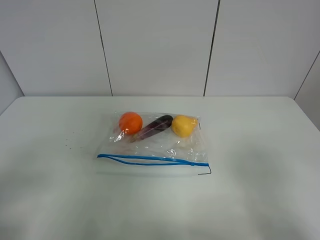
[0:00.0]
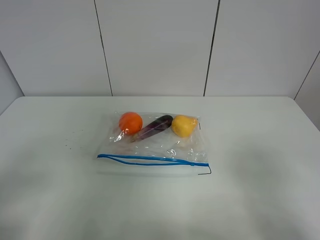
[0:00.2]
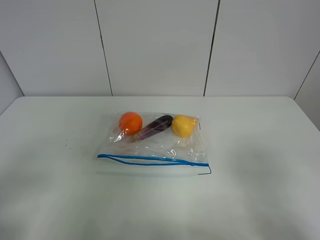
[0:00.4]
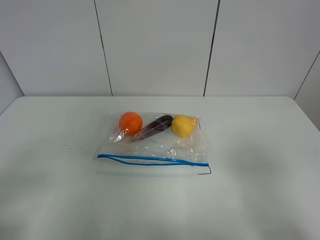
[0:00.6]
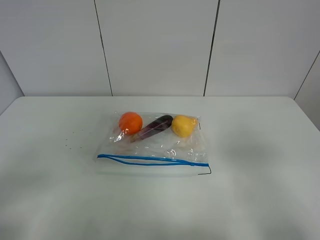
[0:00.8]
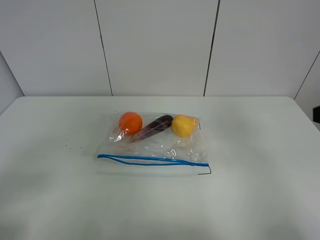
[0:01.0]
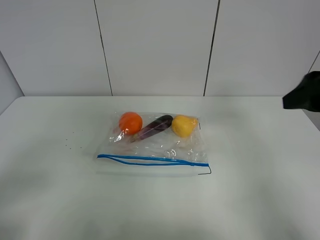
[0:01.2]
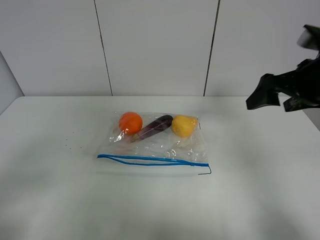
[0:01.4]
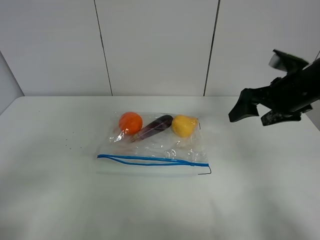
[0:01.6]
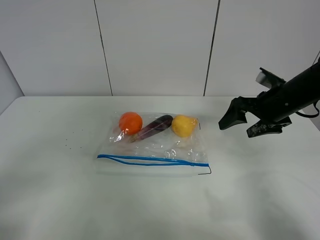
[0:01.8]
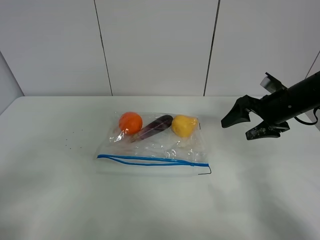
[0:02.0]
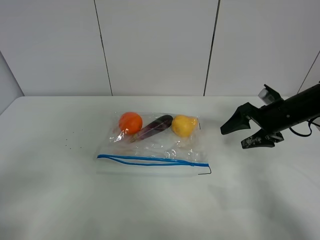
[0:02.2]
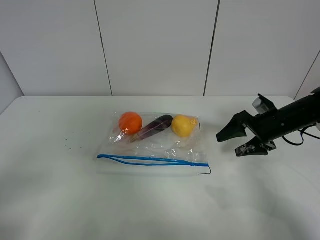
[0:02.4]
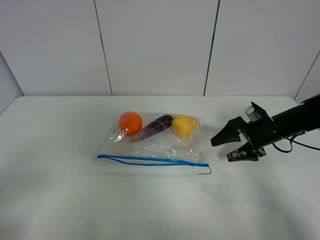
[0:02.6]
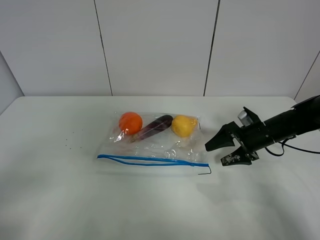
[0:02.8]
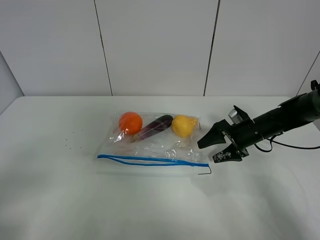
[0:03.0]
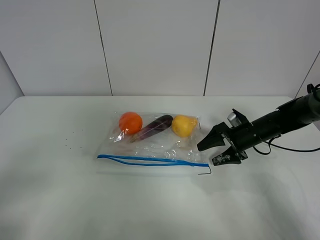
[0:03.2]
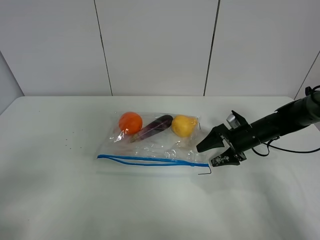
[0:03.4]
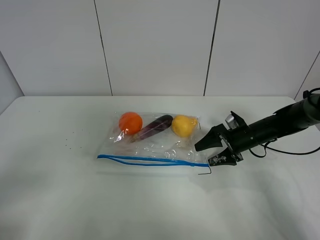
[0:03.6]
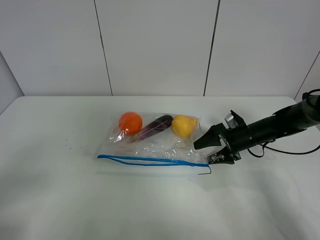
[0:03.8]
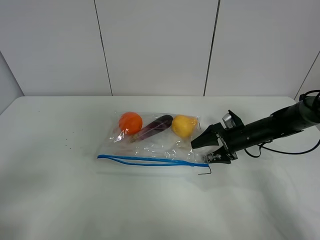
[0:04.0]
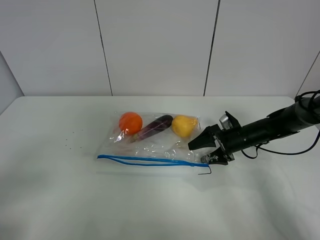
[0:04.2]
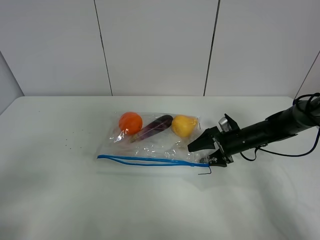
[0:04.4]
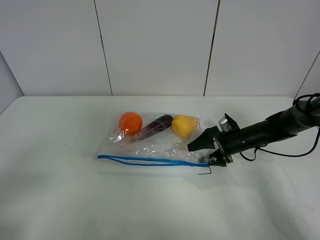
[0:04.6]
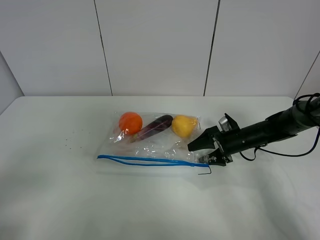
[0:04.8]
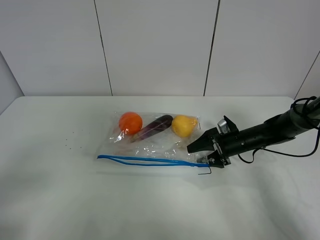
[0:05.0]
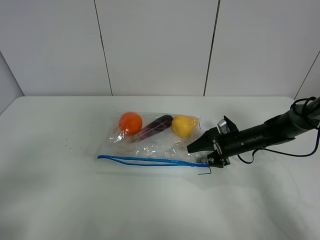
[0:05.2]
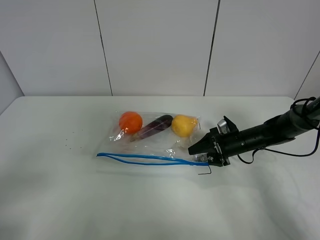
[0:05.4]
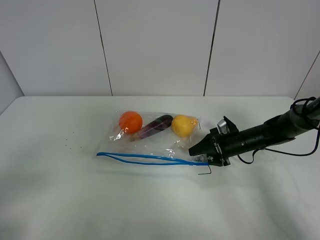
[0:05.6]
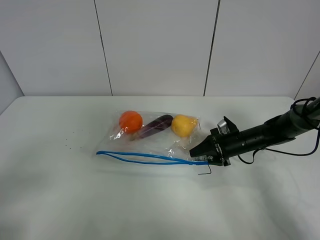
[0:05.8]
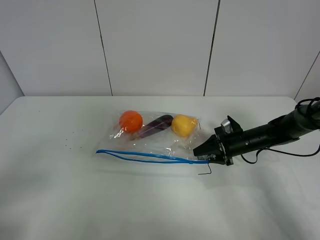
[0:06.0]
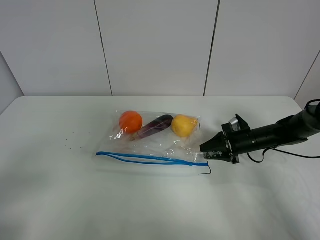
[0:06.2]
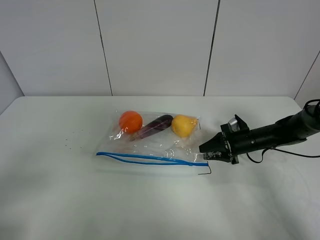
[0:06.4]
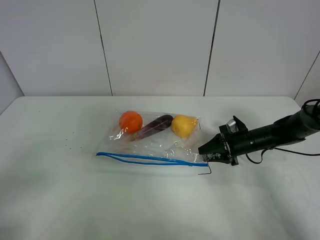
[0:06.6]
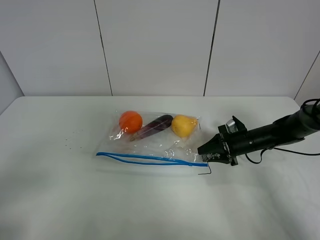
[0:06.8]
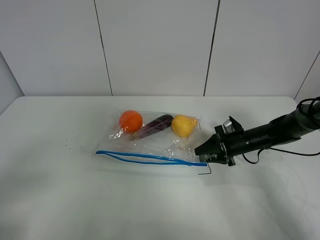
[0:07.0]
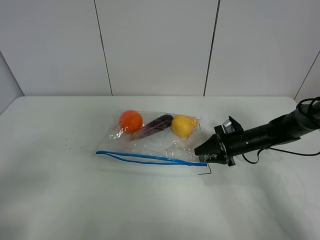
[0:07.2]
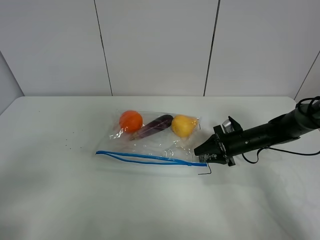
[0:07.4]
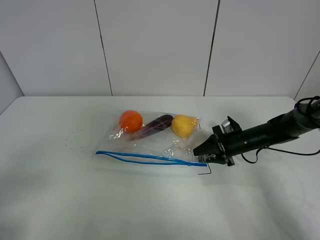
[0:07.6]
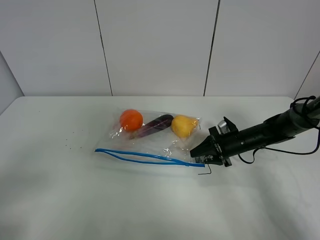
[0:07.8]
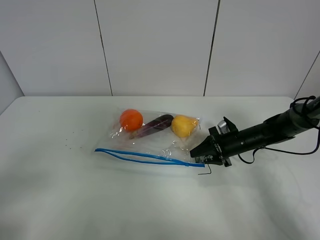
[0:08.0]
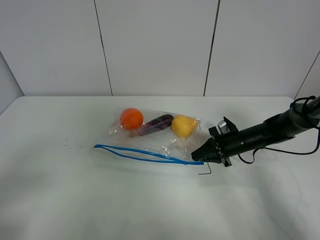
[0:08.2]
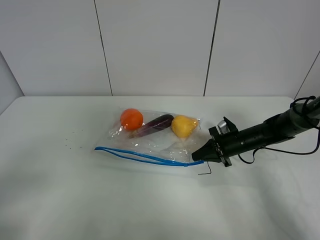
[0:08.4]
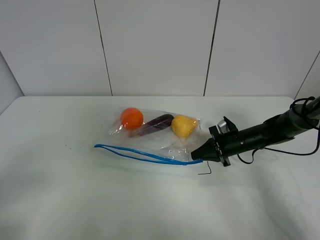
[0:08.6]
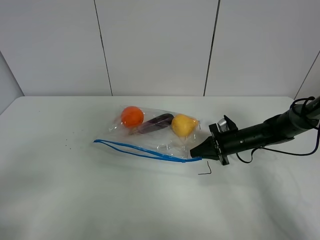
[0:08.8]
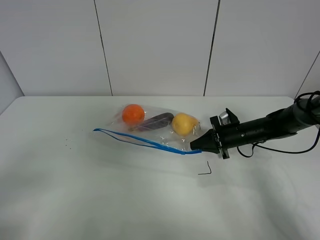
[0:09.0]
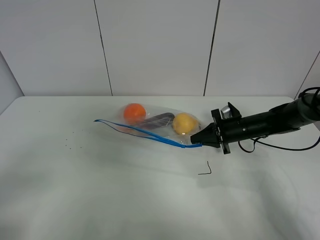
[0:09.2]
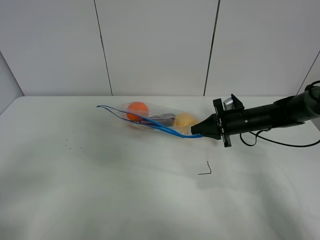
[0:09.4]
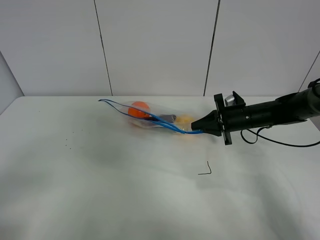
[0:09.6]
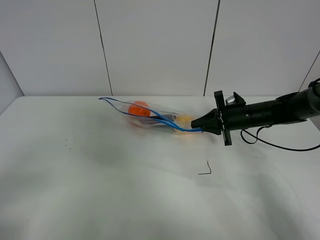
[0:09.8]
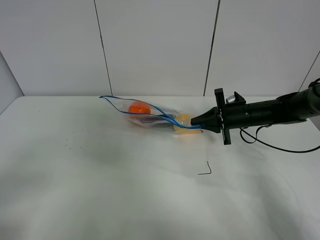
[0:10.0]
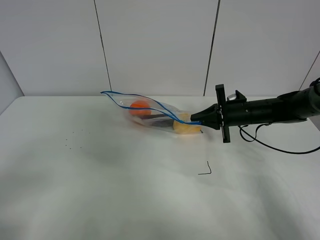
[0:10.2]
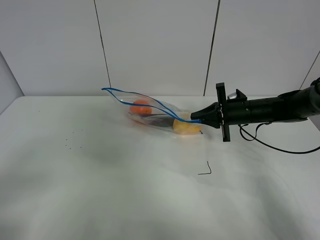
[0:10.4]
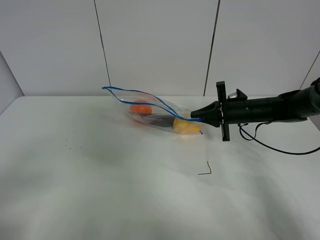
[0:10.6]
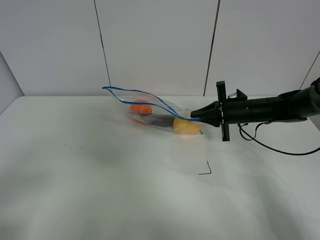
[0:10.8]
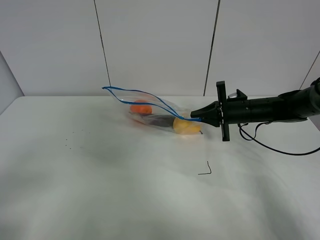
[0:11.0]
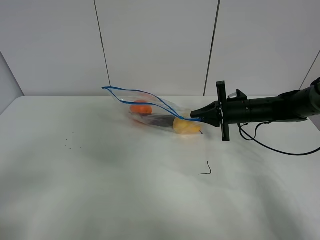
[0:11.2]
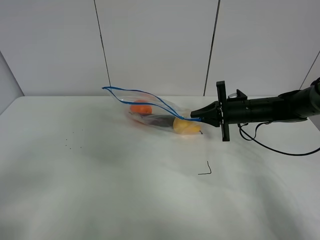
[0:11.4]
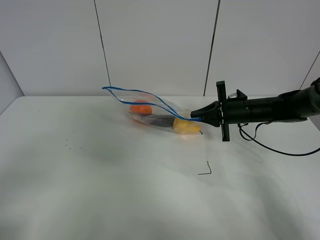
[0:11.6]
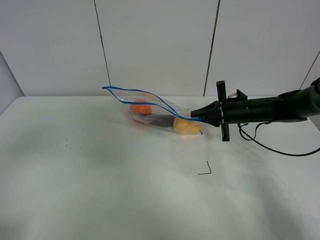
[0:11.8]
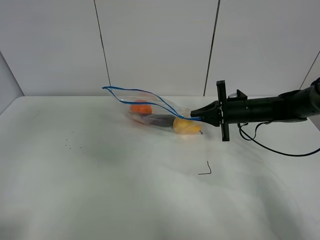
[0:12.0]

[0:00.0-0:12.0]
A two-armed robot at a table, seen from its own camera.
Step, 0:00.0 to 0:08.2: Grasp the fruit bag with right gripper.
Step, 0:08.4 to 0:10.8: Lift the fruit bag with your right gripper.
0:00.0 to 0:01.6: The right gripper shifts approximately 30 cm forward.
0:01.6 to 0:03.0: The right gripper travels downward by approximately 15 cm.
0:03.0 to 0:04.4: The grippers move only a little.
0:04.4 to 0:06.0: The right gripper closes its fingers.
0:06.0 to 0:07.6: Both grippers stay about where they are.
0:07.6 to 0:09.0: The right gripper closes its fingers.
0:09.0 to 0:10.4: The right gripper moves upward, roughly 5 cm.
0:10.4 to 0:12.0: The left gripper heads upward and forward, covering about 15 cm.

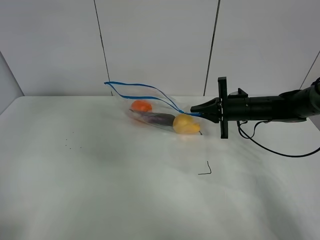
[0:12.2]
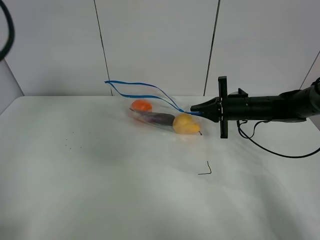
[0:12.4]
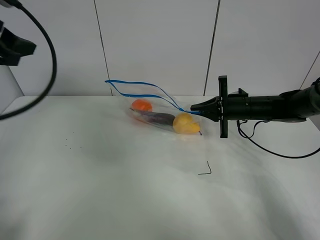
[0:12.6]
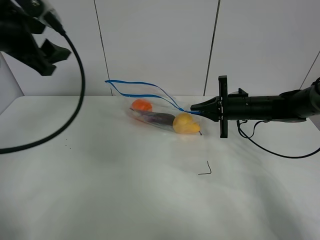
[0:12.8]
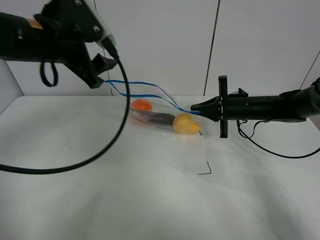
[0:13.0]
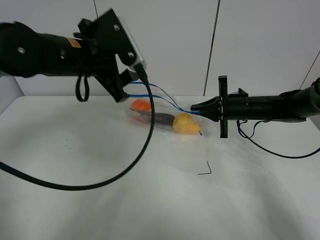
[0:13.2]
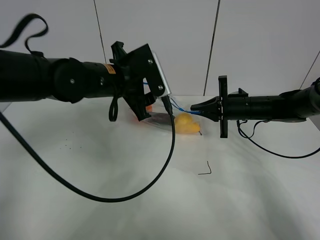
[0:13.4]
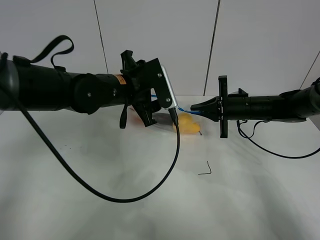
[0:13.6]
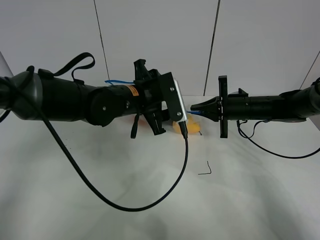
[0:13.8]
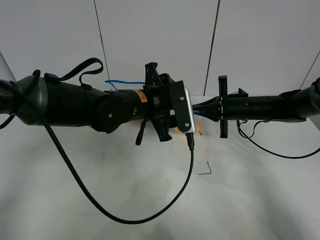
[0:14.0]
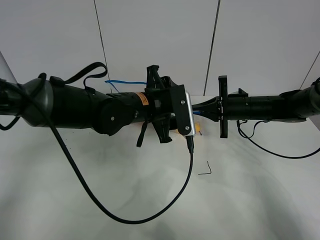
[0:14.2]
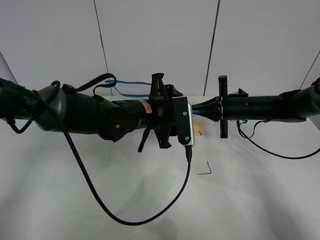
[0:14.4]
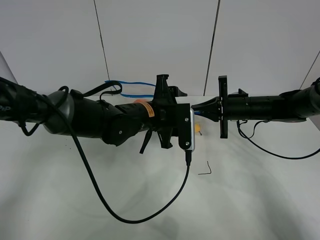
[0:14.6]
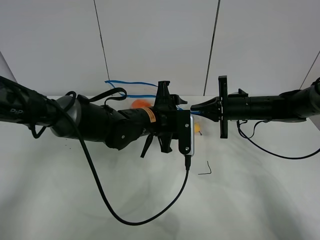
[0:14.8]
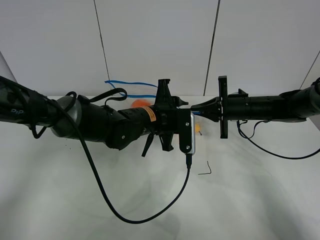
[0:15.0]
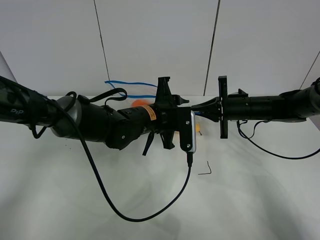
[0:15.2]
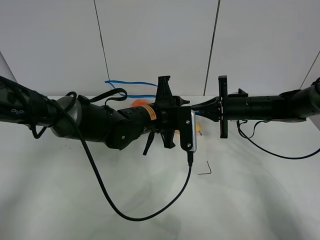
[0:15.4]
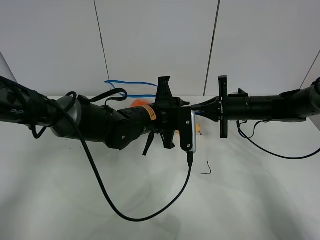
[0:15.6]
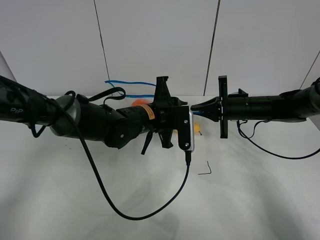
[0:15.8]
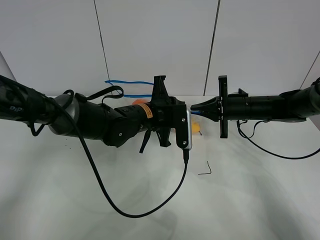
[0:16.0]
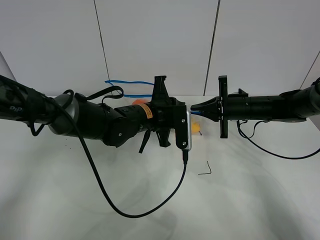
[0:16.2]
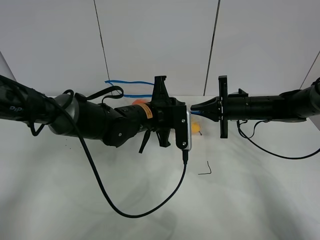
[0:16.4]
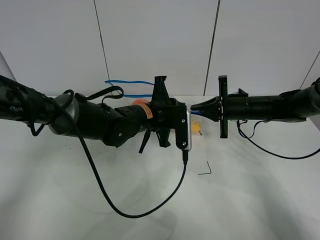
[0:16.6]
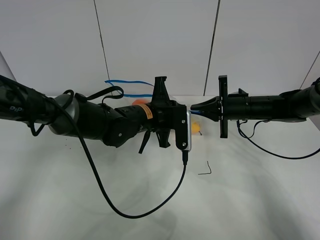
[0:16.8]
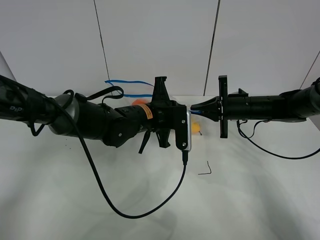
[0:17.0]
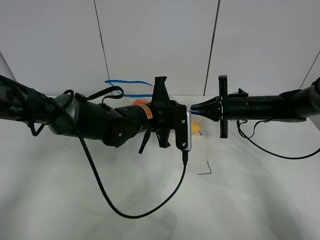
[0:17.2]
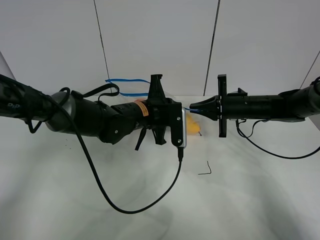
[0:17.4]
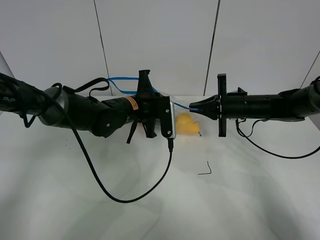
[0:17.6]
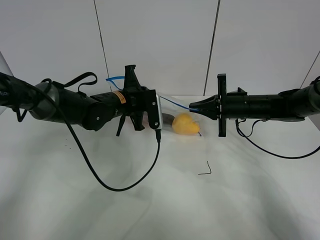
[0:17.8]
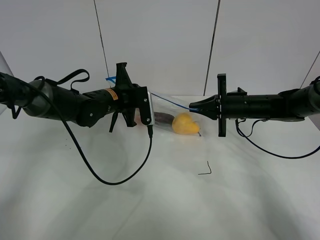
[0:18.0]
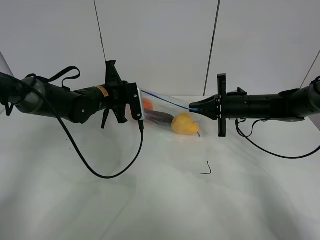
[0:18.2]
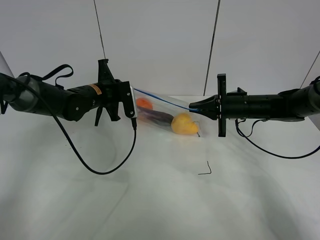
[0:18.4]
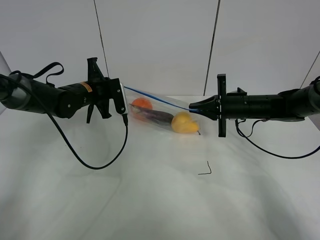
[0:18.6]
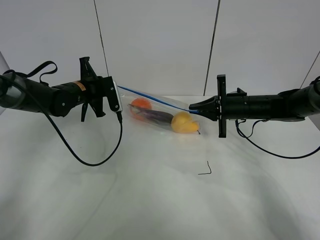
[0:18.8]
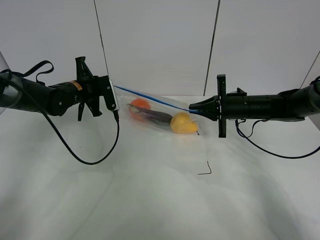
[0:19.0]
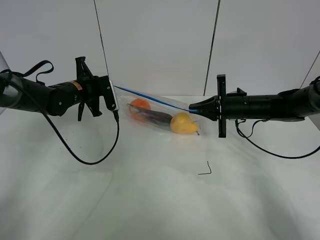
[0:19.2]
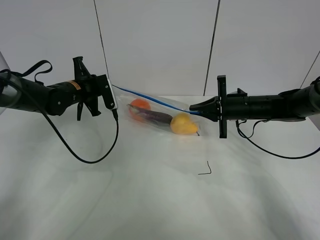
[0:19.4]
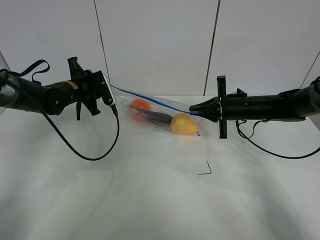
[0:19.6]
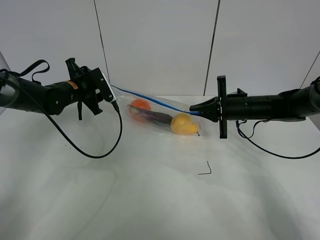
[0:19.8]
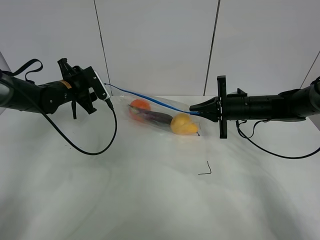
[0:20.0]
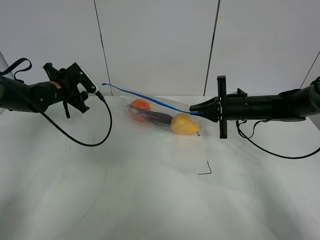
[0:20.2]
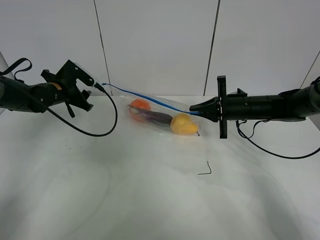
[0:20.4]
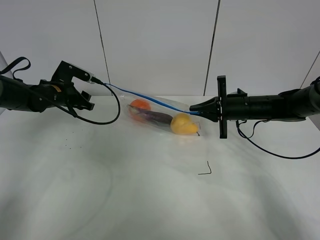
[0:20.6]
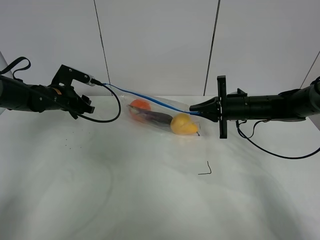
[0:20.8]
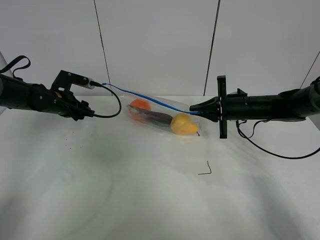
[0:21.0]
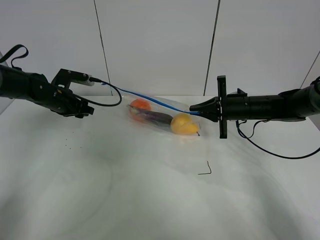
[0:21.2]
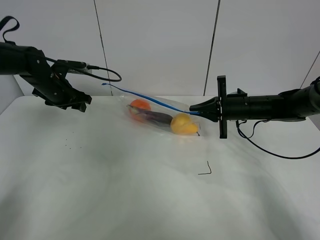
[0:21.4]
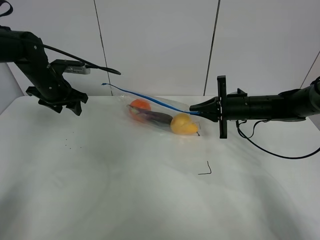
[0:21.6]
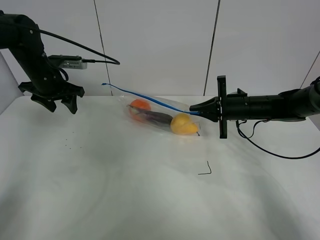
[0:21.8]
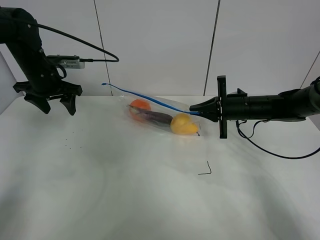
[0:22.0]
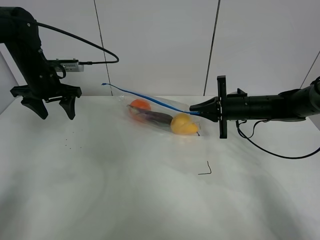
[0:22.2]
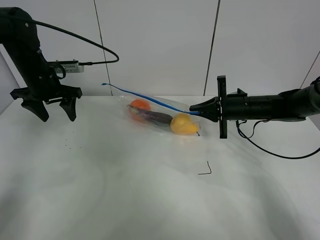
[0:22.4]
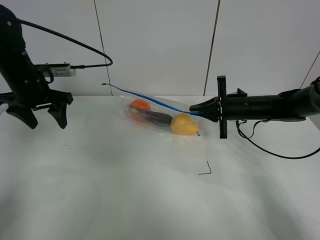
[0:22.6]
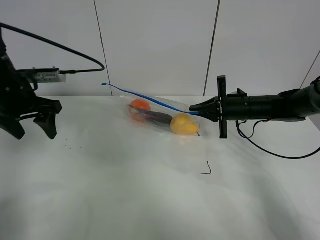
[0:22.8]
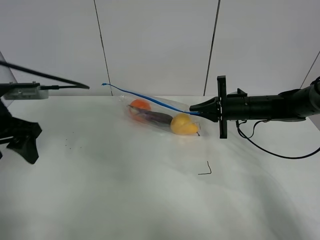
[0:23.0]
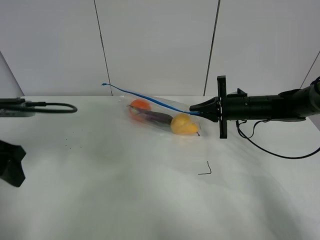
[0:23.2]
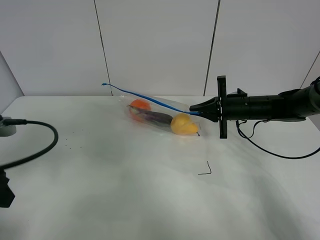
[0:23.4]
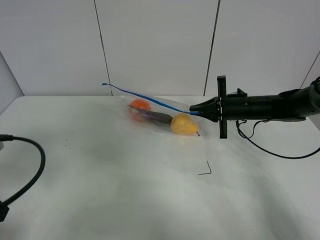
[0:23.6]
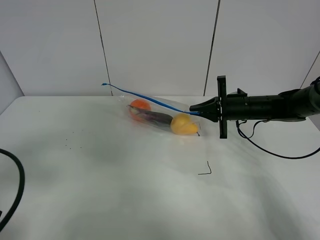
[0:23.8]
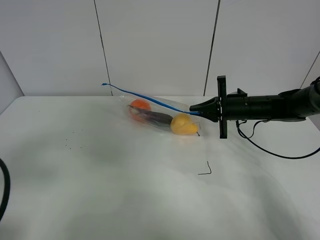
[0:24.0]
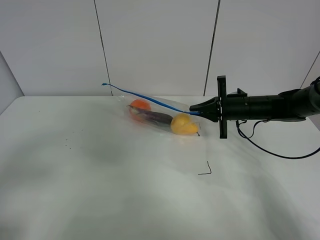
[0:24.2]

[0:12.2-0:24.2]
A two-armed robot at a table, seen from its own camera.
Step, 0:12.2 to 0:20.0: Pull the fruit bag with left gripper.
0:12.2 to 0:13.8: The left gripper travels to the right, downward and forward by approximately 35 cm.
0:13.8 to 0:15.2: The left gripper changes place by roughly 5 cm, and closes up.
0:15.2 to 0:16.6: The left gripper closes.
0:16.6 to 0:18.2: The left gripper travels to the left and forward by approximately 15 cm.
0:18.2 to 0:19.8: The left gripper shifts approximately 10 cm to the left, and opens.
0:21.2 to 0:22.6: The left gripper is displaced upward and backward by some 10 cm.
0:22.6 to 0:24.2: The left gripper heads backward, covering approximately 30 cm.
